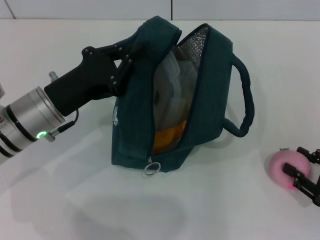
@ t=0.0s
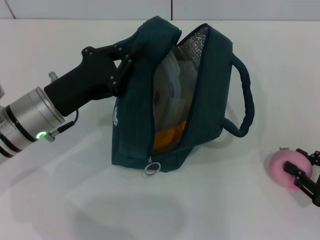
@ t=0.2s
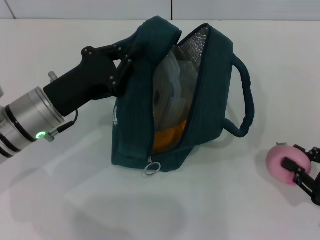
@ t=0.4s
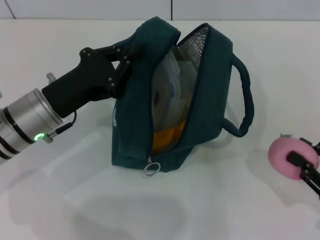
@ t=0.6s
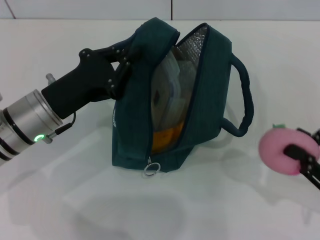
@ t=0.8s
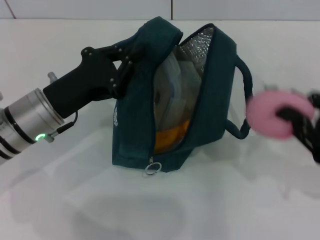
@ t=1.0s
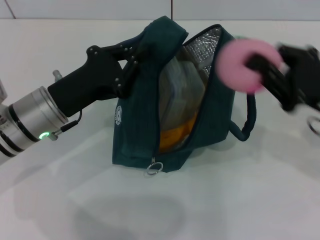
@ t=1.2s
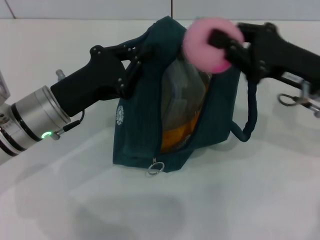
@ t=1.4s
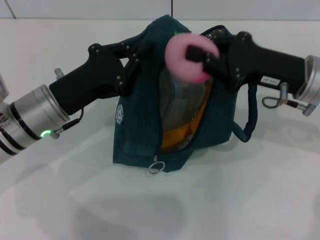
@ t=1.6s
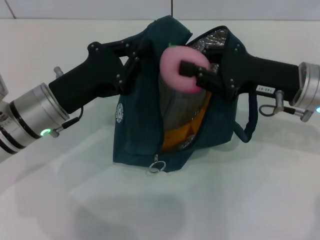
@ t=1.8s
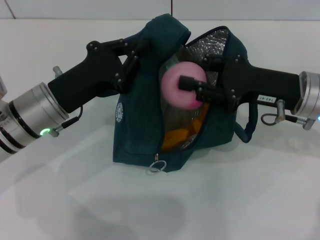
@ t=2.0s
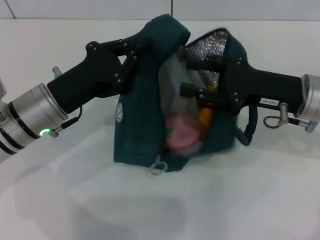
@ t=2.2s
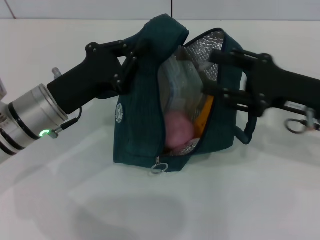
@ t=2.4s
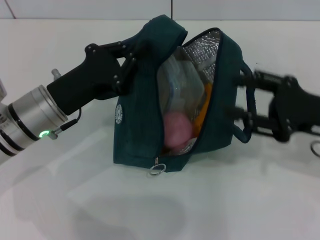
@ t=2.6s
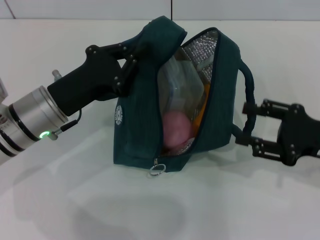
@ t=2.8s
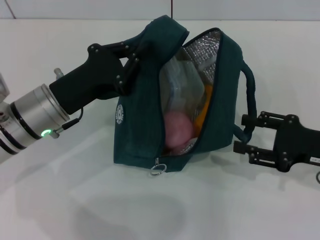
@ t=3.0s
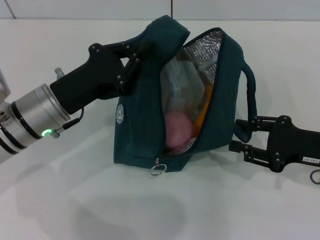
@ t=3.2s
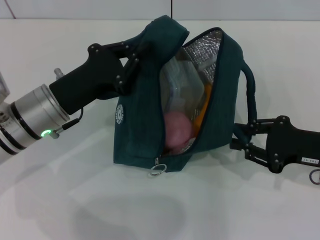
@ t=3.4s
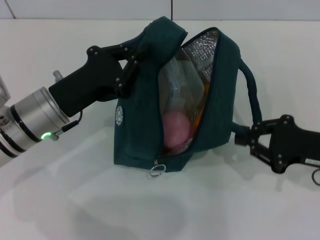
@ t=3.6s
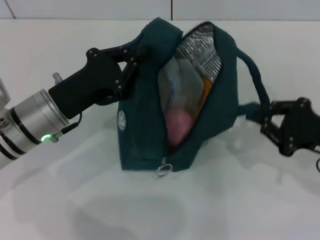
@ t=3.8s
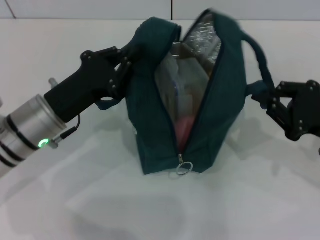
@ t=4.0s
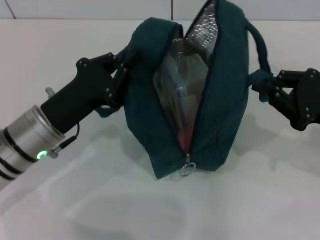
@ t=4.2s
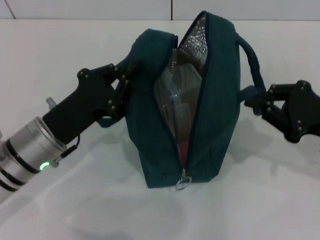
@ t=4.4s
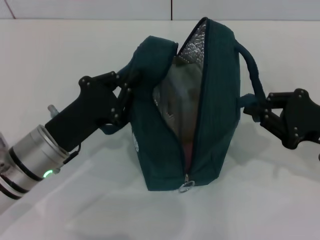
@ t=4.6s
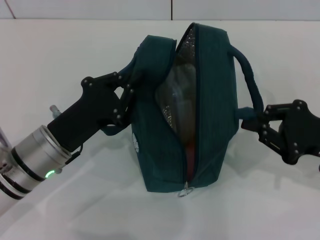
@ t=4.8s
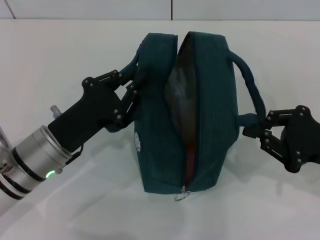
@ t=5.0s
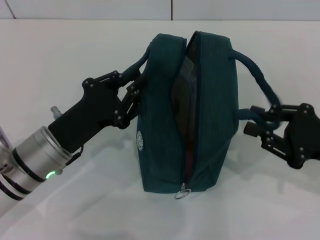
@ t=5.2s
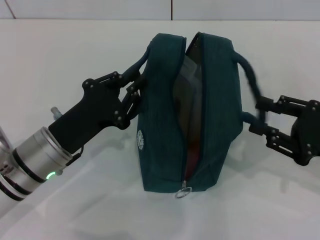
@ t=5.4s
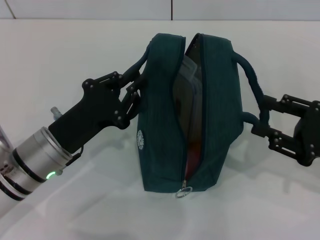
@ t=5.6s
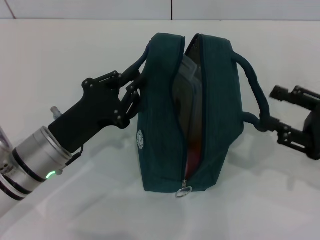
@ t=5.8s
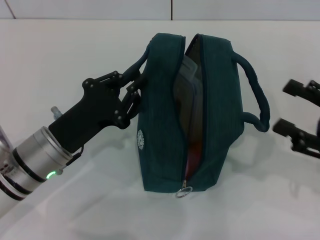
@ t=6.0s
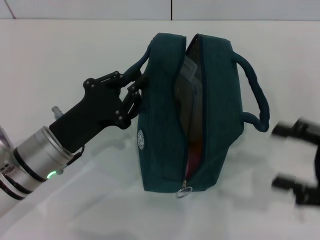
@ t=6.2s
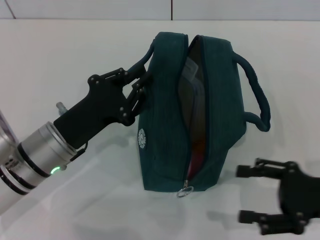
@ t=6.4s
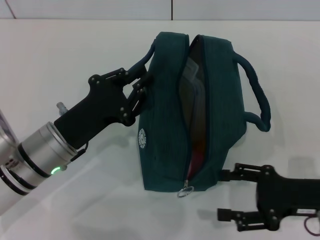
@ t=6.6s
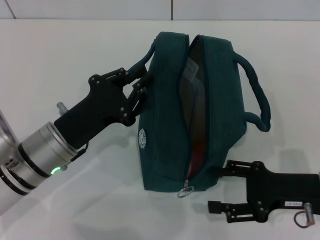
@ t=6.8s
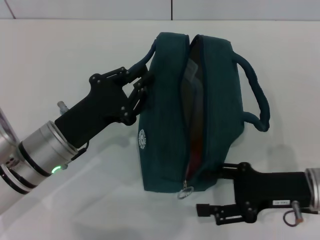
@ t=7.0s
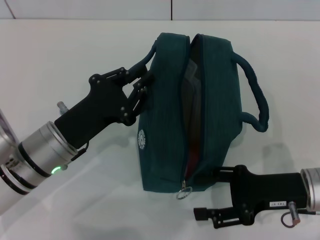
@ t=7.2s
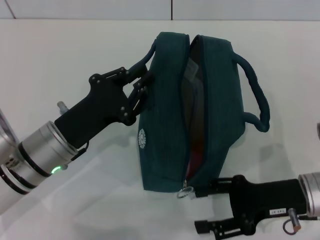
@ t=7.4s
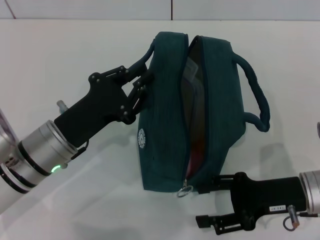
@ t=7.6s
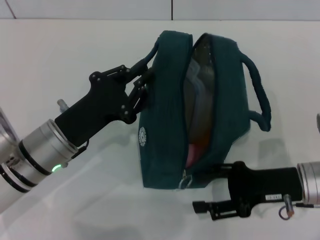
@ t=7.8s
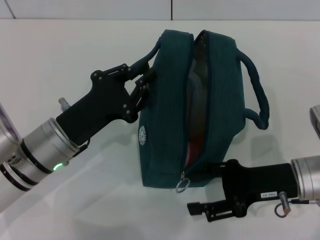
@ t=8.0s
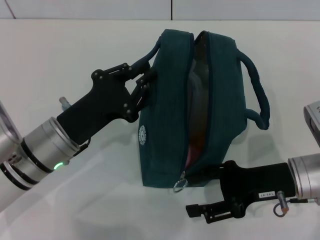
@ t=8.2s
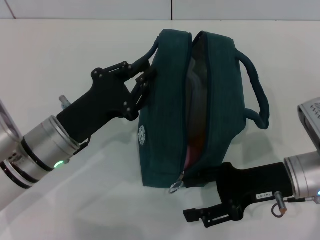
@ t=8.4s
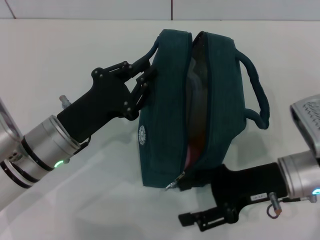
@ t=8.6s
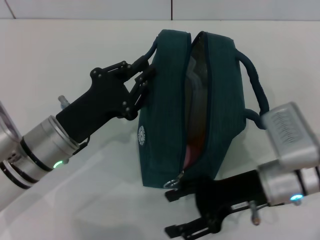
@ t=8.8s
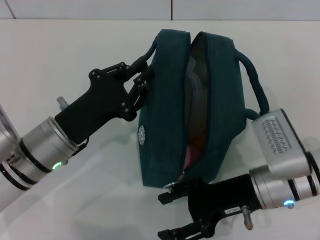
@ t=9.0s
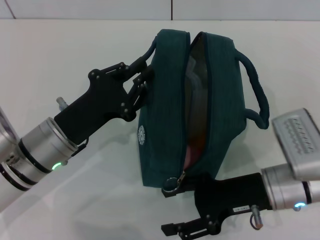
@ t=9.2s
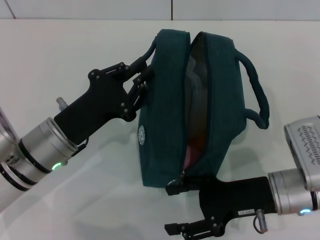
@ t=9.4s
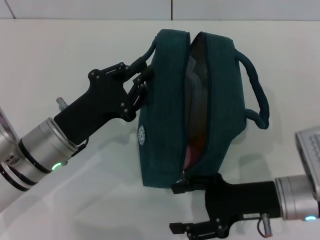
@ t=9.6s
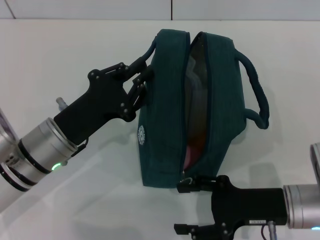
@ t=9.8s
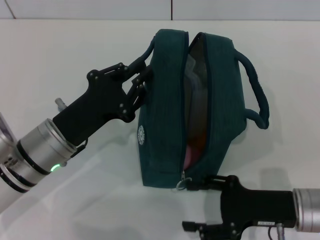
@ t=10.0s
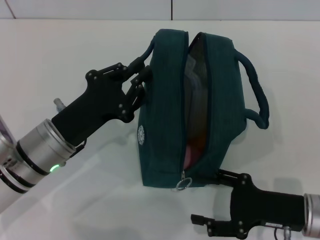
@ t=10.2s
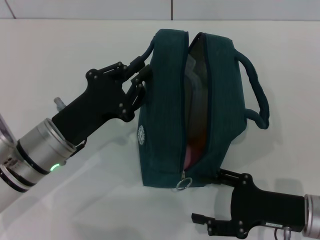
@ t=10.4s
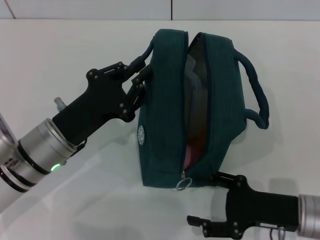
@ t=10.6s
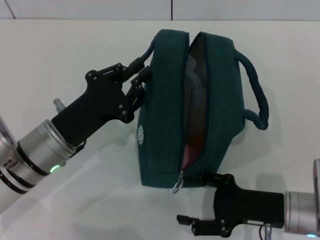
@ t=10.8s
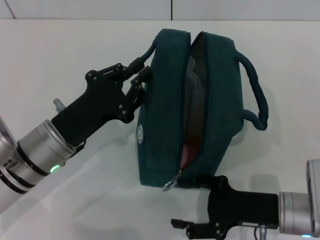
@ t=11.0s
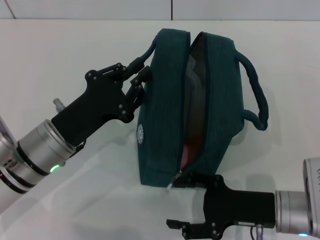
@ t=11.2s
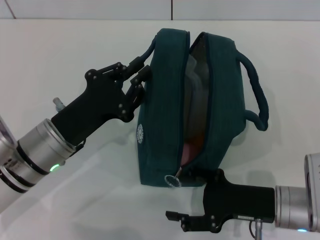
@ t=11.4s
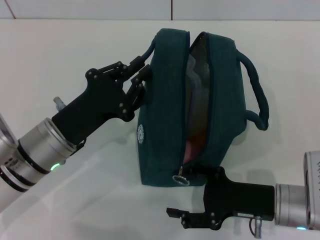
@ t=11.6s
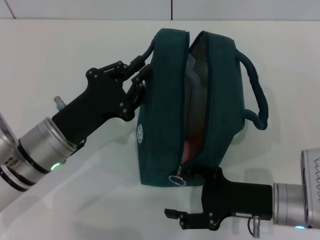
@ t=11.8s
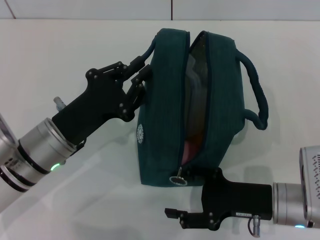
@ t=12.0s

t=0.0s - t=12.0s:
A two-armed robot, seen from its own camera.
Step, t=2.4s - t=5.4s: Hold the lunch bag with your right hand.
t=0.0s - t=1.6s: The right gripper moves forward, to the left and upward, about 25 cm, and closes up.
t=1.6s - t=3.0s: The right gripper travels to the right, backward and downward by approximately 10 cm, and opens up.
t=3.0s - t=4.4s: The right gripper closes its fingers.
t=4.4s - t=6.0s: The right gripper moves roughly 5 cm, and opens up.
t=6.0s - t=7.6s: The right gripper is displaced to the left and downward by roughly 10 cm.
t=7.6s - t=9.0s: The right gripper is displaced to the left by approximately 5 cm.
t=9.0s - t=10.4s: The right gripper is displaced to the right and backward by some 10 cm.
t=10.4s - t=12.0s: The grippers make only small movements.

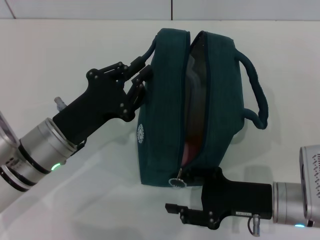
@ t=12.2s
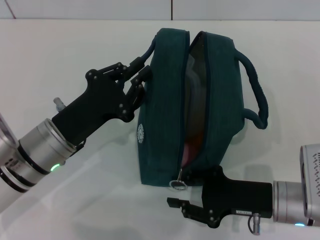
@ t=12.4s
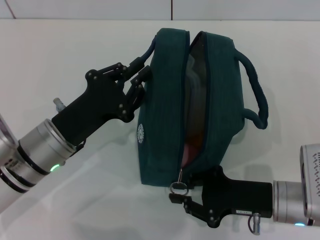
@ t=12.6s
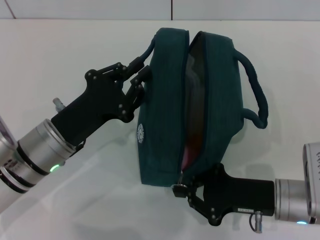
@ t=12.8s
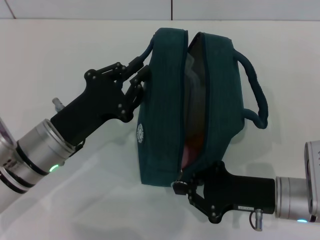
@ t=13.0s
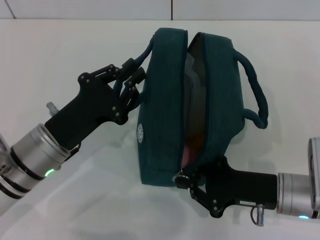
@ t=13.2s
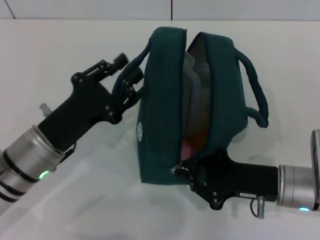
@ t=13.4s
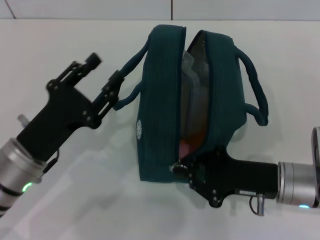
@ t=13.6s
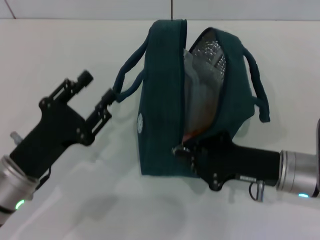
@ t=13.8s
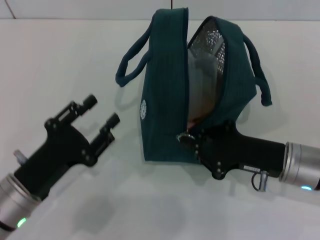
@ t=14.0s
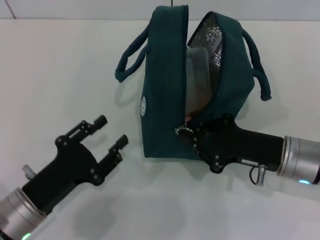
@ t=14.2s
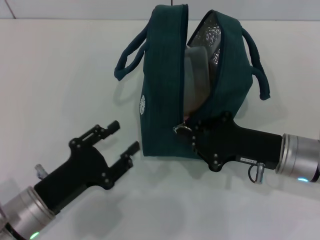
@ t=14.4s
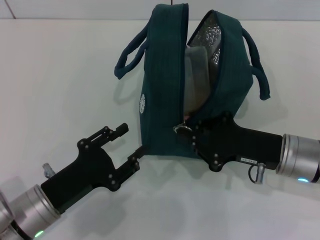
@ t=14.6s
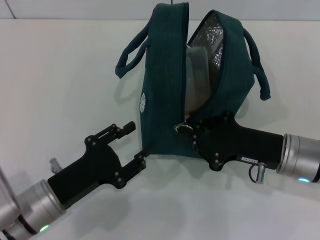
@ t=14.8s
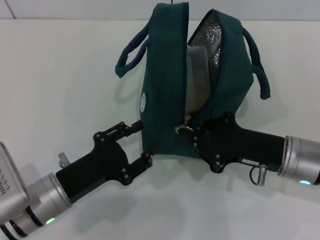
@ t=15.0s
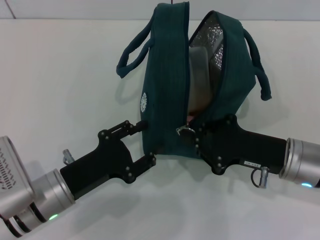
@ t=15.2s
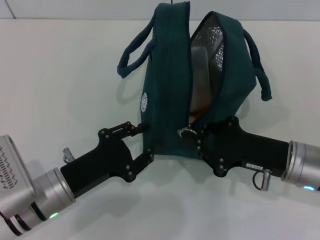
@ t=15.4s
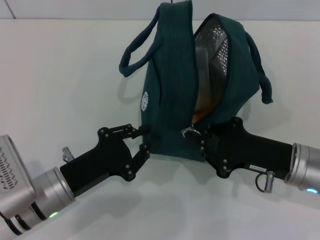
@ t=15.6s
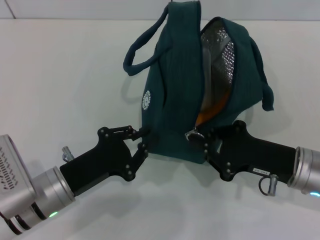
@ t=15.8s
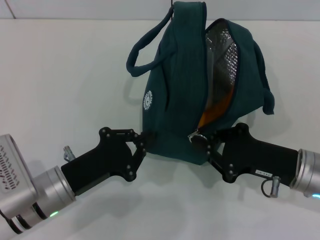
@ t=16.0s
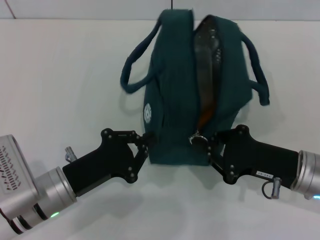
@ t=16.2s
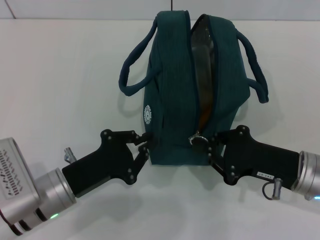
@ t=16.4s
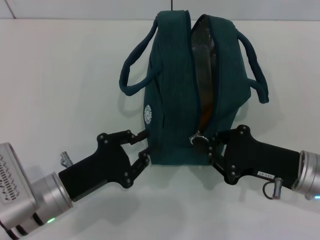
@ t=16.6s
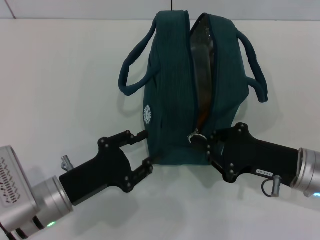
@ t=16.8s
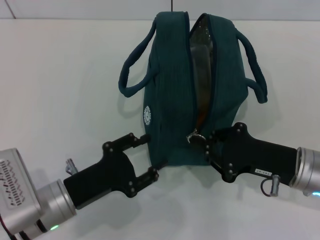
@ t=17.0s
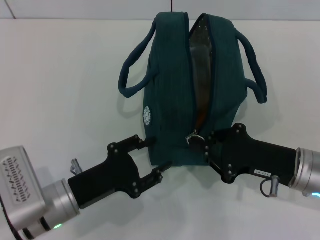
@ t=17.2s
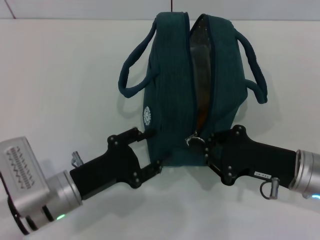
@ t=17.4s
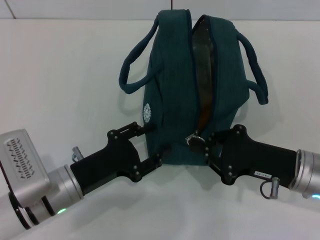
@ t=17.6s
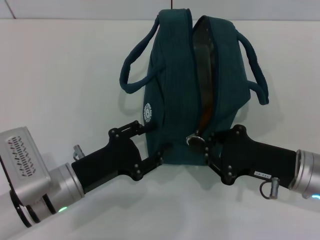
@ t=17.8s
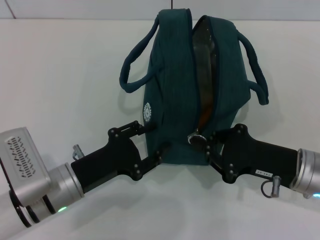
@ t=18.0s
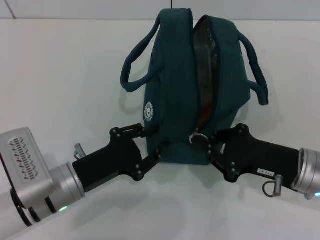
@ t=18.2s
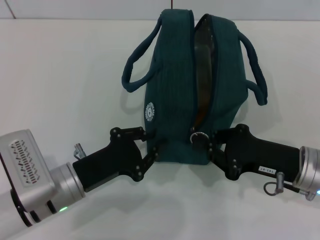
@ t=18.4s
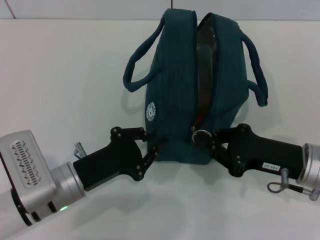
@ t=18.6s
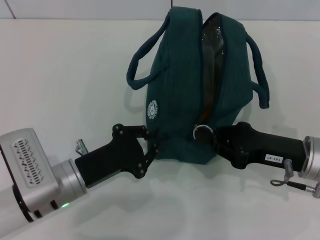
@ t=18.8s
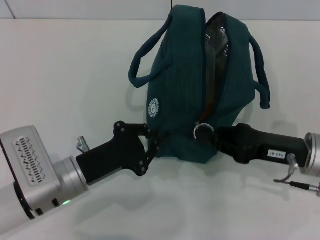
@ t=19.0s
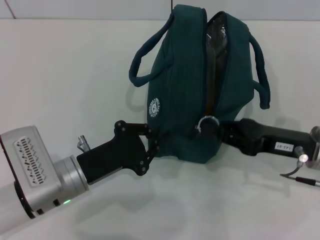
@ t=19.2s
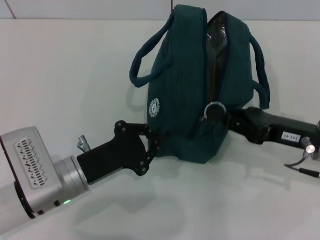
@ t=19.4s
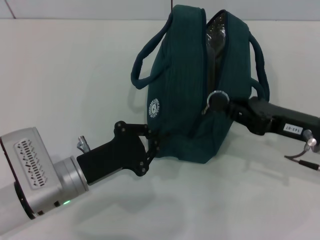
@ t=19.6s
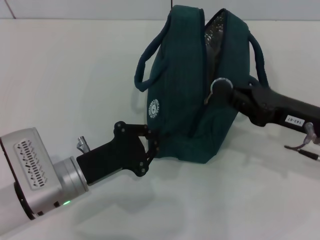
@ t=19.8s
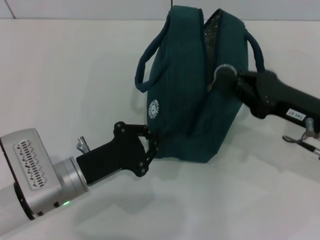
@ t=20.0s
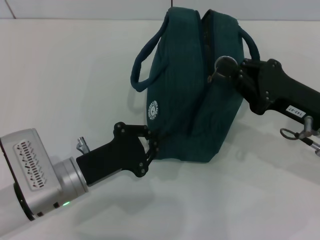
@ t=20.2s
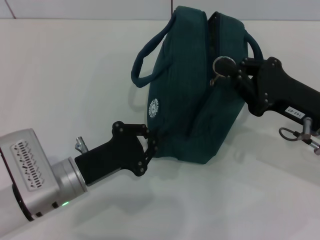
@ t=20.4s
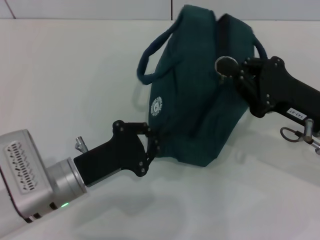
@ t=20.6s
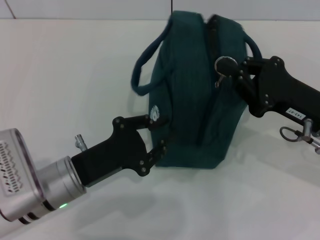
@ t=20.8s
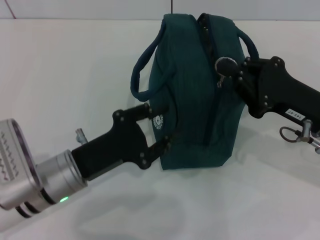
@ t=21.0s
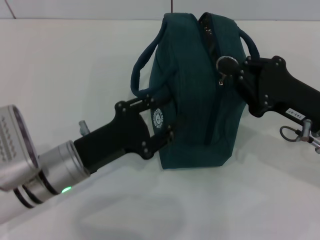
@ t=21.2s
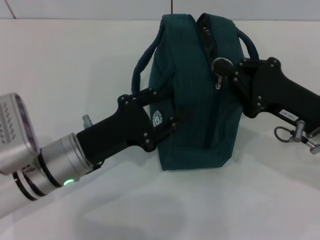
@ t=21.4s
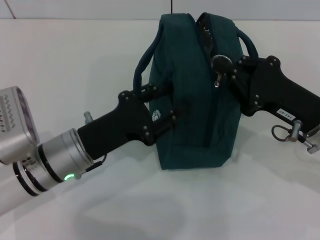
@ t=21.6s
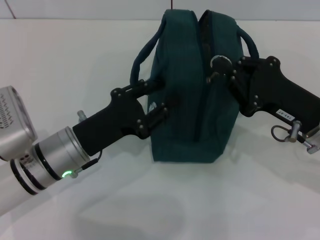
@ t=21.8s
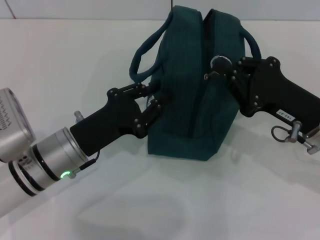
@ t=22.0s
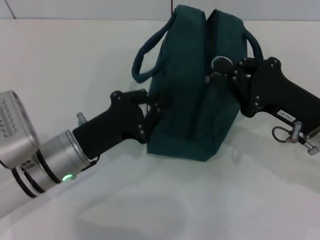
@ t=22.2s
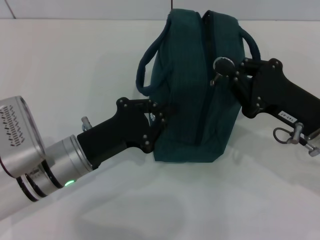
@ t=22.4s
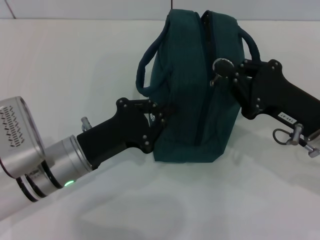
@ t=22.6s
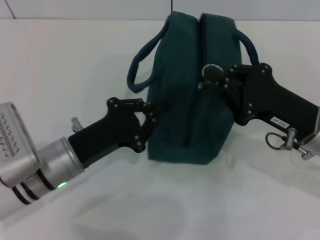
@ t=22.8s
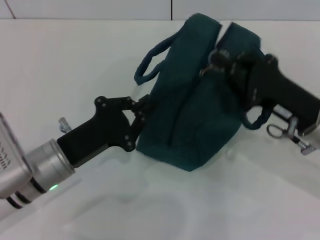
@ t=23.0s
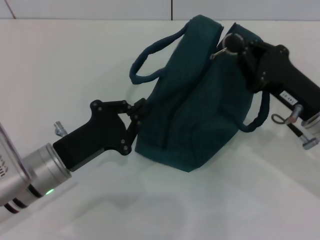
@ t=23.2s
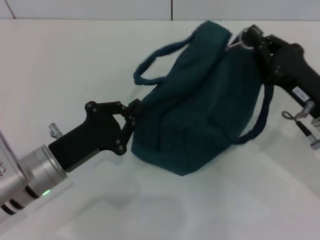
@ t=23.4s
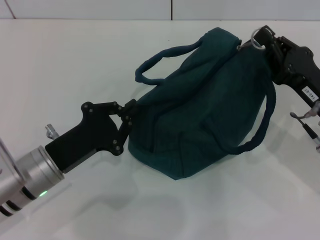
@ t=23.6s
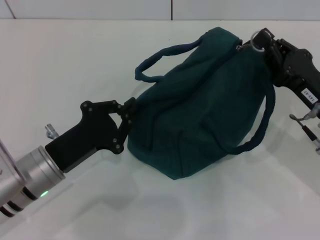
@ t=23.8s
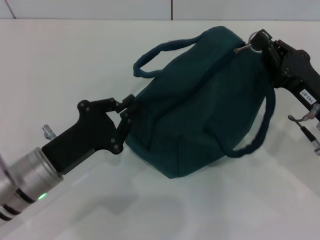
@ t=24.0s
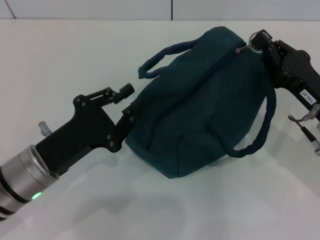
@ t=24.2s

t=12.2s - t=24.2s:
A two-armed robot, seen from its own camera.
t=12.2s - t=13.8s: The left gripper travels backward by approximately 5 cm, and opens its fingers. Meanwhile the right gripper closes up.
t=15.2s - t=16.6s: The left gripper closes.
t=16.6s - t=18.2s: The left gripper opens.
t=18.2s - t=19.8s: The right gripper ends up roughly 5 cm from where it was. Meanwhile the left gripper closes its fingers.
t=19.8s - t=21.2s: The left gripper opens its fingers.
t=21.2s - t=22.6s: The left gripper closes up.
